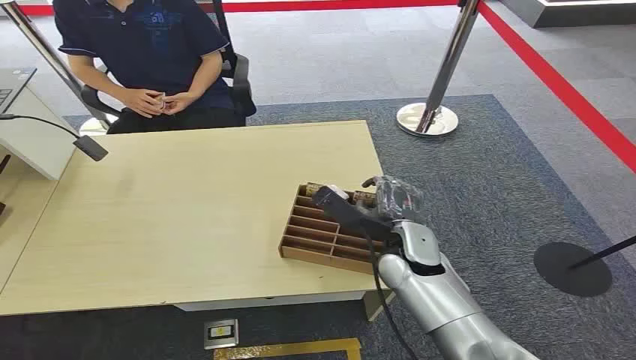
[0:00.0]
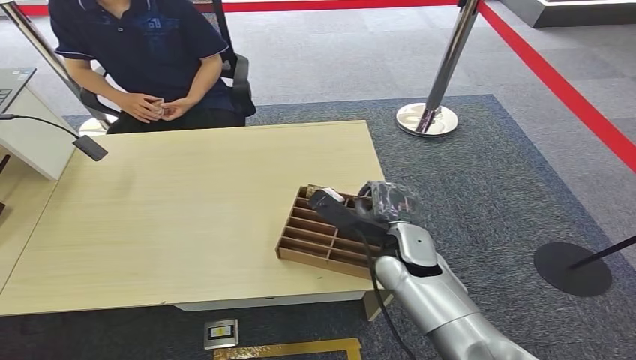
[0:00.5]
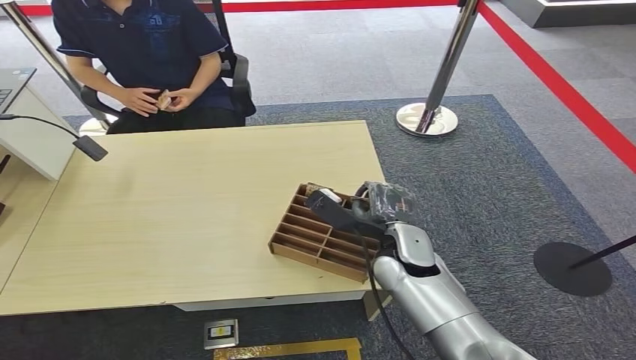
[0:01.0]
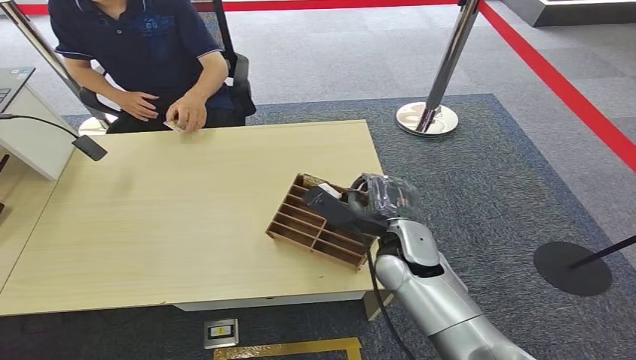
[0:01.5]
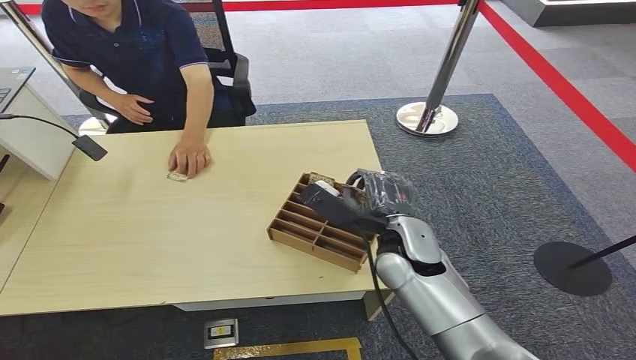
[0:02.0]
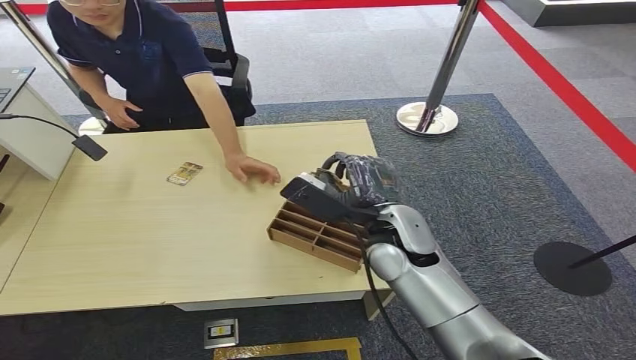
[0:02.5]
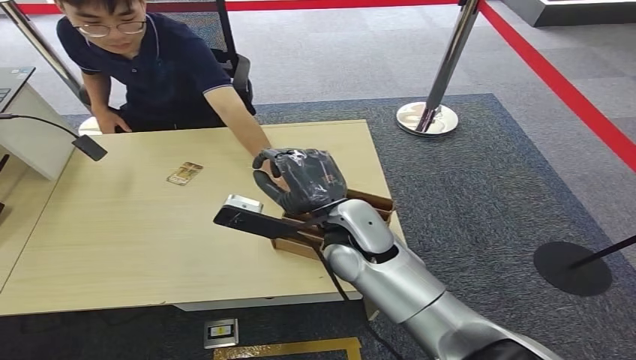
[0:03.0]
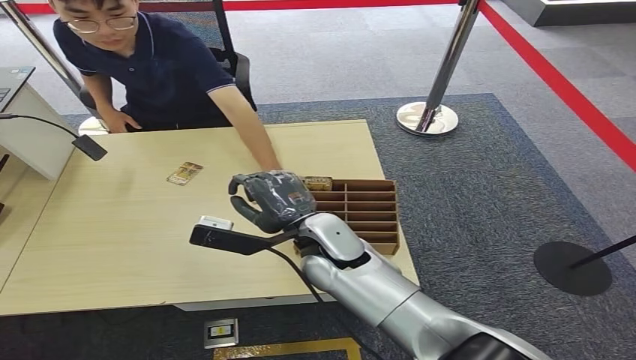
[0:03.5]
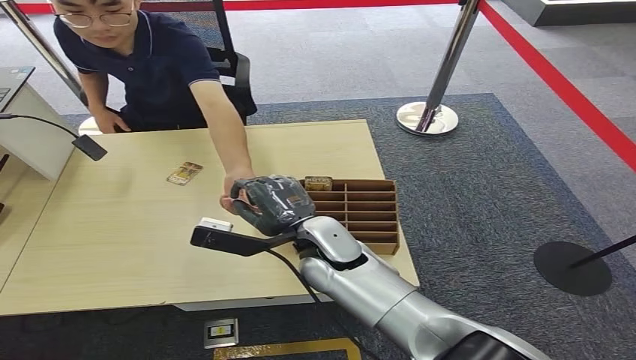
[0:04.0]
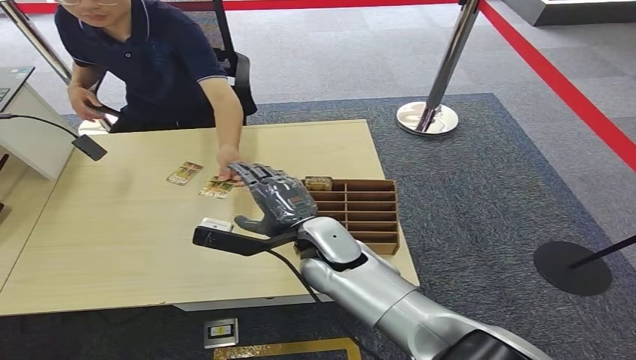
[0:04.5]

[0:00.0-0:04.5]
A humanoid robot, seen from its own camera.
Step, 0:00.0 to 0:02.0: Pick up the key card from the card box.
Step, 0:02.5 to 0:04.5: Hand the key card to the target.
0:02.0 to 0:04.5: The right hand goes approximately 10 cm to the left.
